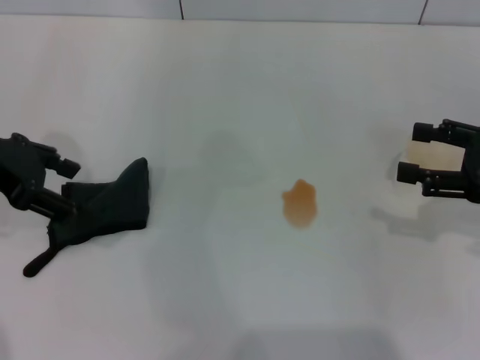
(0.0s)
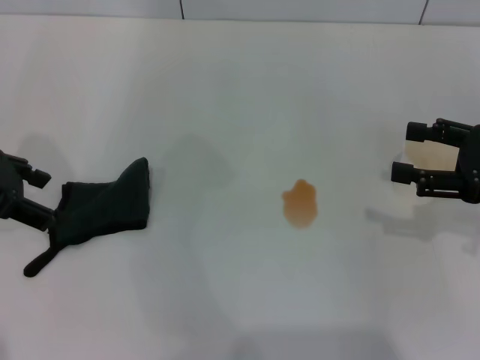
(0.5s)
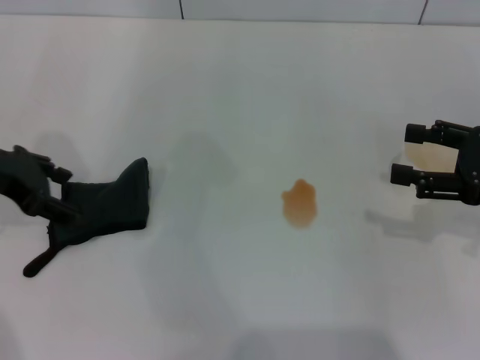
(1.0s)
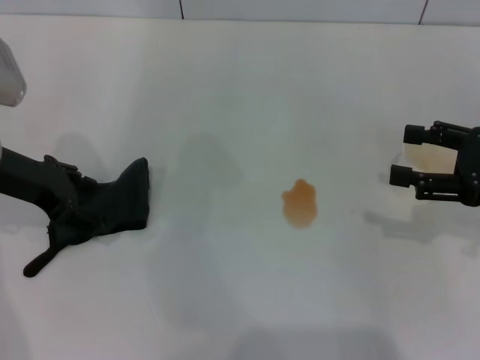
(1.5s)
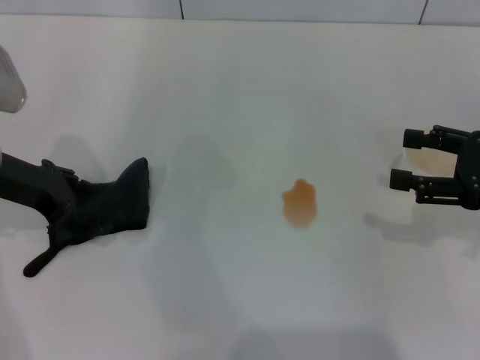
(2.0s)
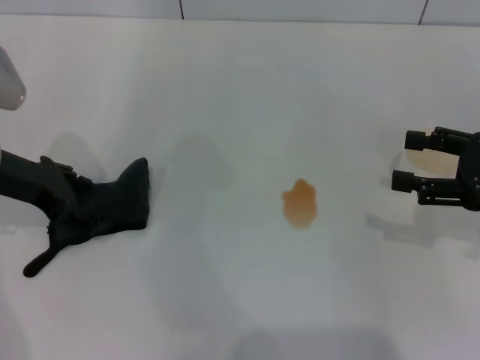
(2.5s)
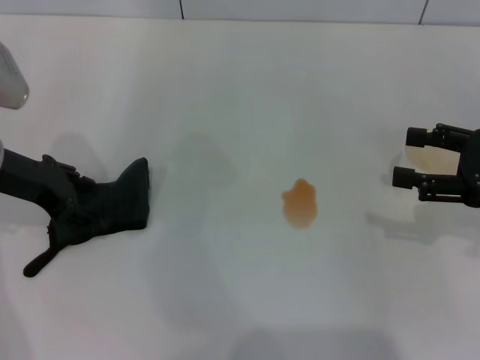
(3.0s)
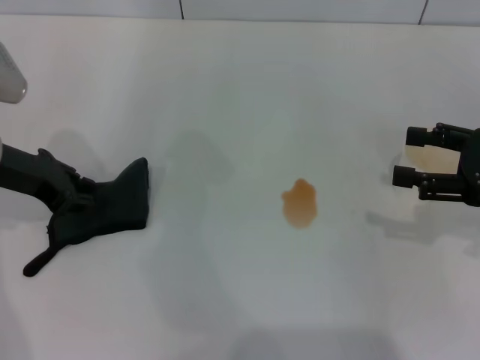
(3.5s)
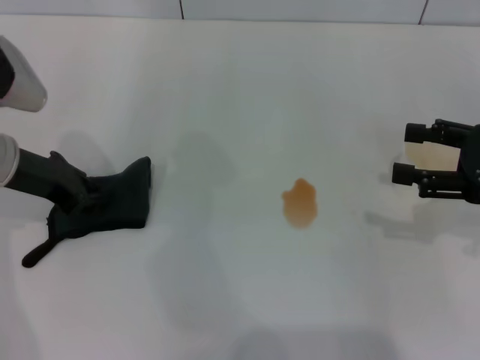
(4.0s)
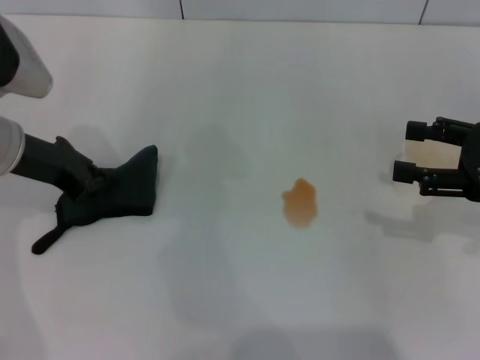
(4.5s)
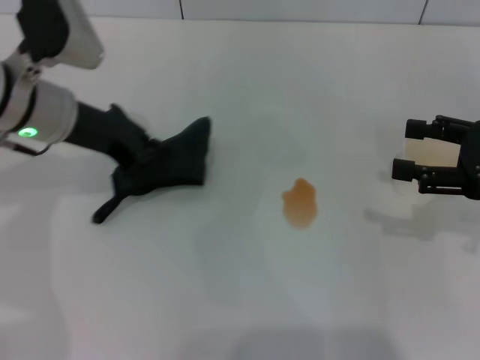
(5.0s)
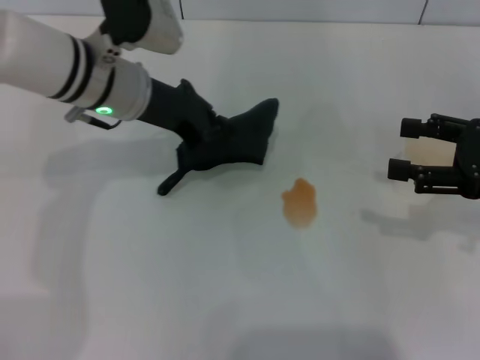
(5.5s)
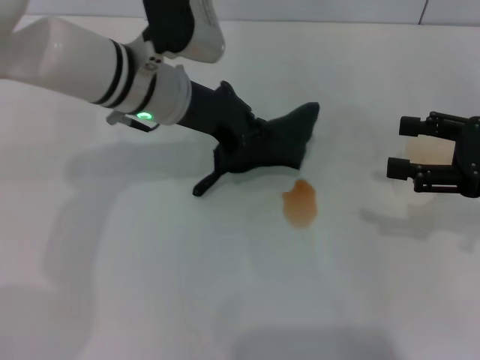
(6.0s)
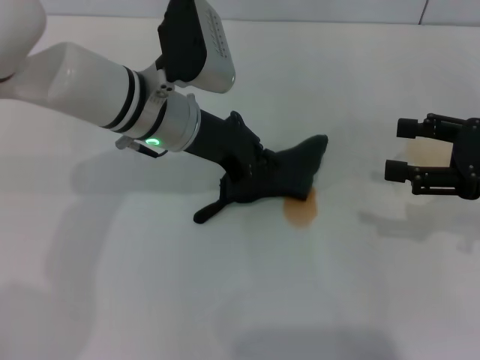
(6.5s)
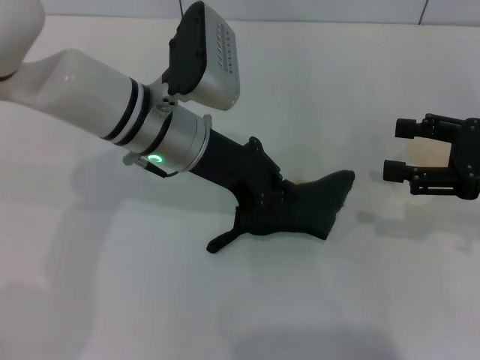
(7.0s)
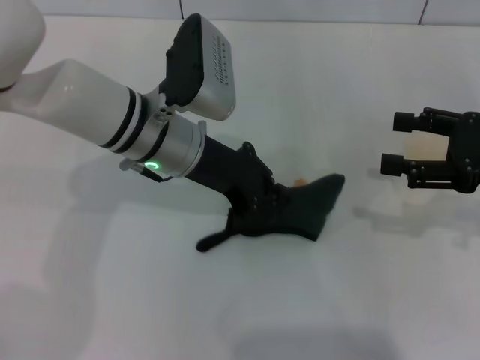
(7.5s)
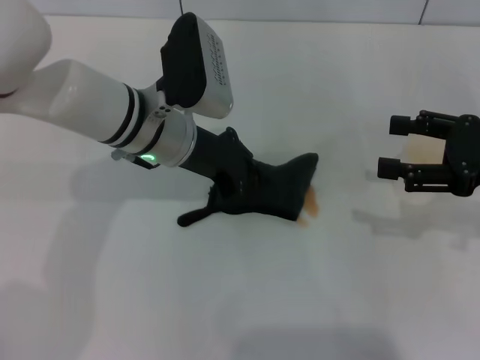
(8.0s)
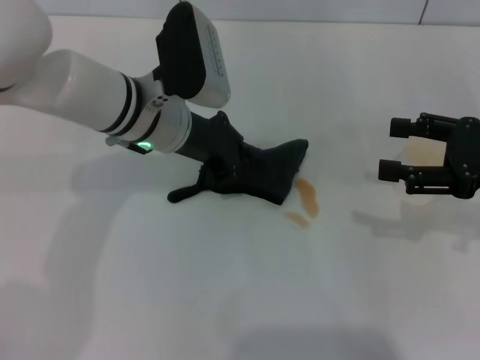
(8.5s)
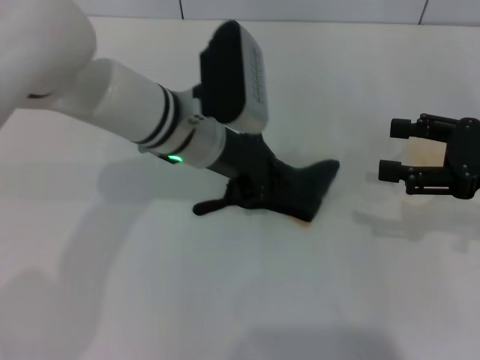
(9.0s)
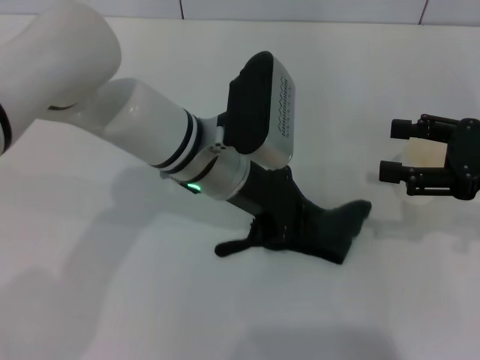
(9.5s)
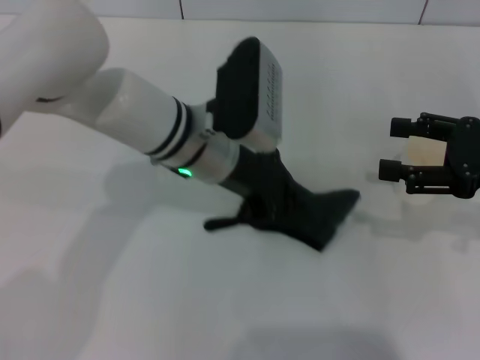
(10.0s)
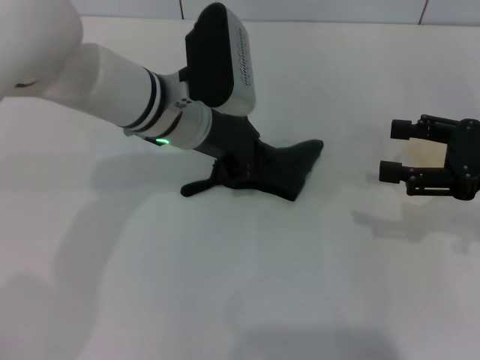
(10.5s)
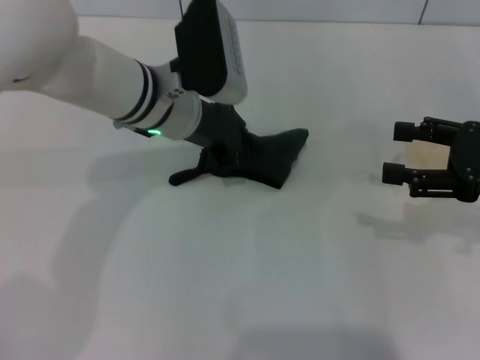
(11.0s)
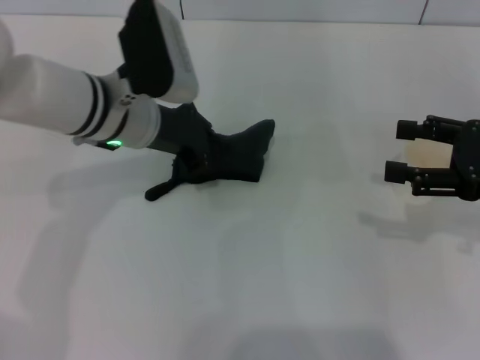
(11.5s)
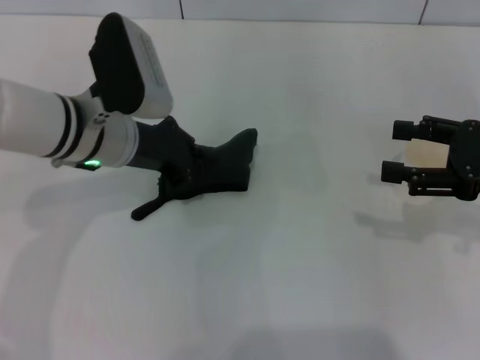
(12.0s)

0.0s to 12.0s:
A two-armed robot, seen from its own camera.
Step, 0.0s to 4.0s: Grasp the rag with the left gripper.
Step, 4.5s to 12.0s: Wipe the stains off the table with the left gripper.
0.0s to 2.0s: The left gripper heads downward, covering some 5 cm.
2.0s to 4.0s: The left gripper closes up.
4.0s to 6.0s: The left gripper is displaced to the right by about 15 cm.
6.0s to 8.0s: There are only small adjustments of the grippers.
8.0s to 10.0s: There are only small adjustments of the grippers.
10.0s to 12.0s: The left gripper goes about 10 cm to the left.

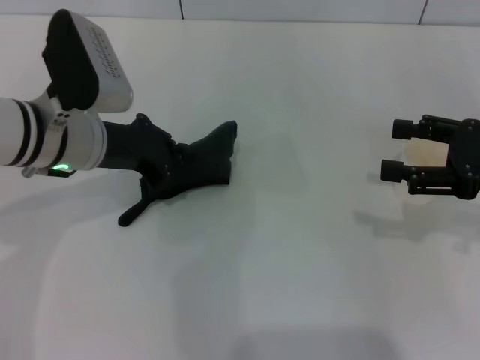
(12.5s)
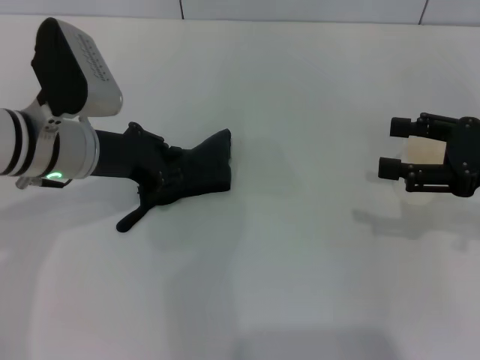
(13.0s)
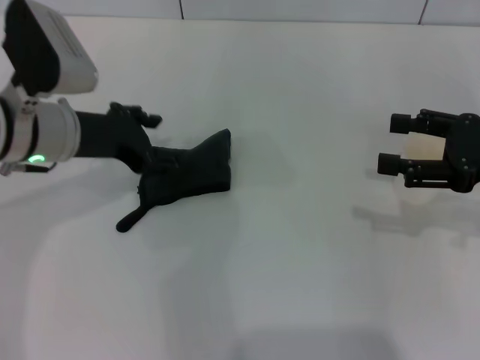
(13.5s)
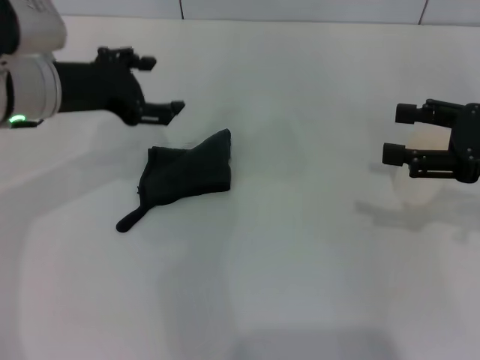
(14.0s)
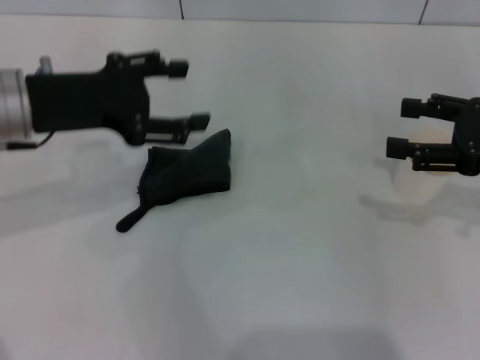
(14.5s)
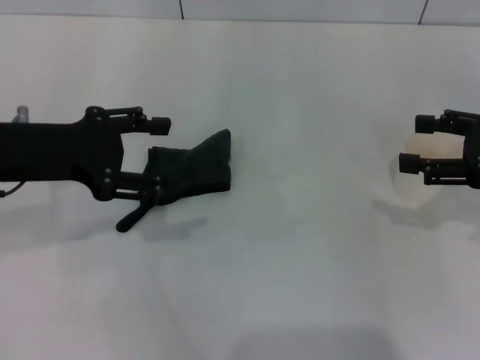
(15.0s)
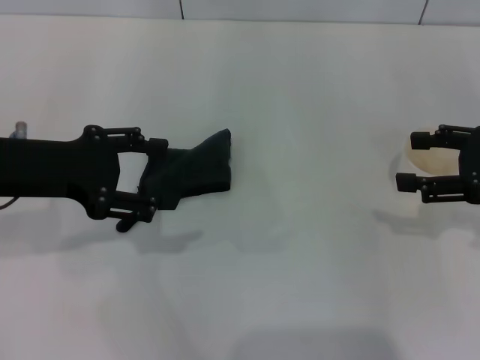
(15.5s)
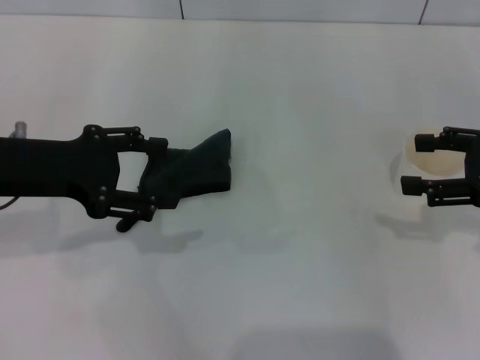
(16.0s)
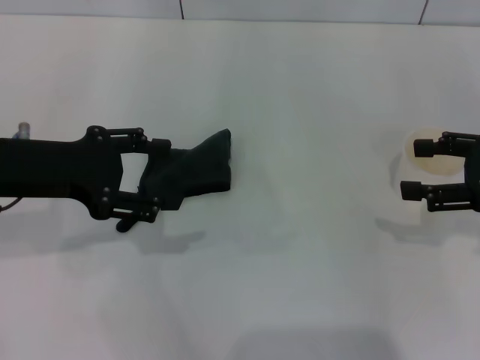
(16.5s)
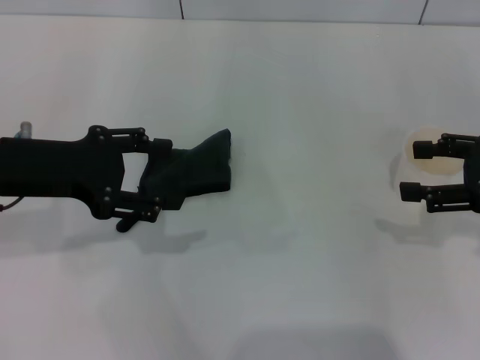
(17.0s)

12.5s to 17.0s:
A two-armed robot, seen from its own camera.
Step, 12.5s to 13.5s: Place the rag on the table with the left gripper.
12.5s to 14.5s: The left gripper shifts some 5 cm upward, and opens its fingers.
14.5s to 17.0s: The grippers move only a little.
